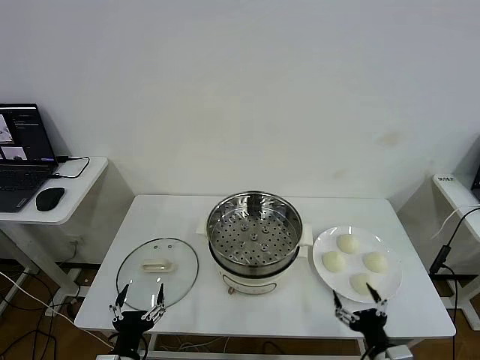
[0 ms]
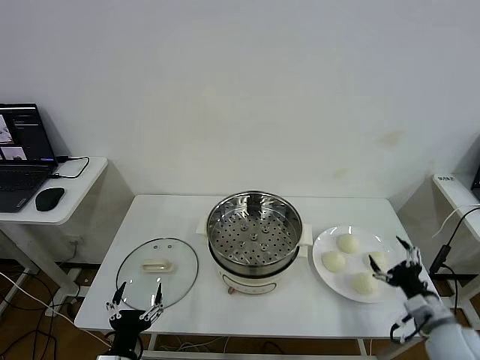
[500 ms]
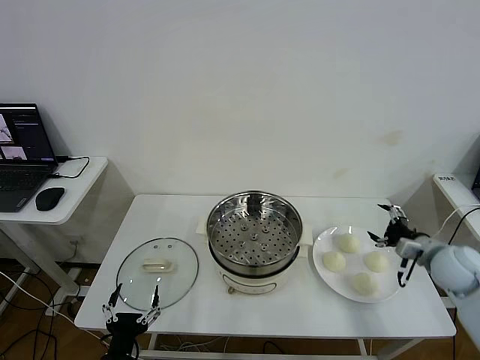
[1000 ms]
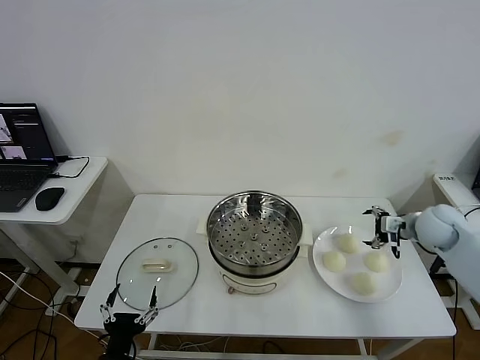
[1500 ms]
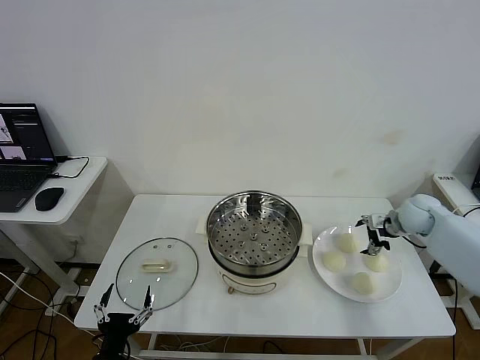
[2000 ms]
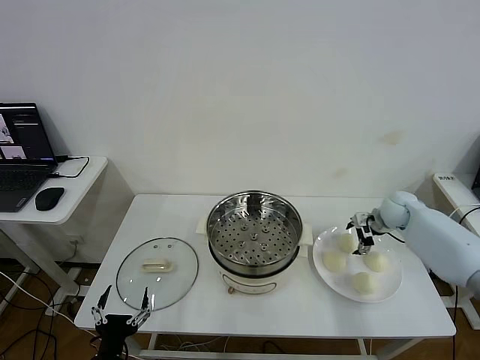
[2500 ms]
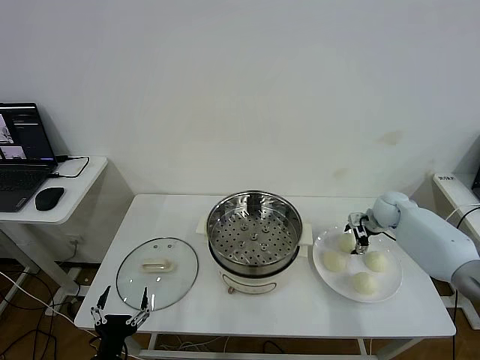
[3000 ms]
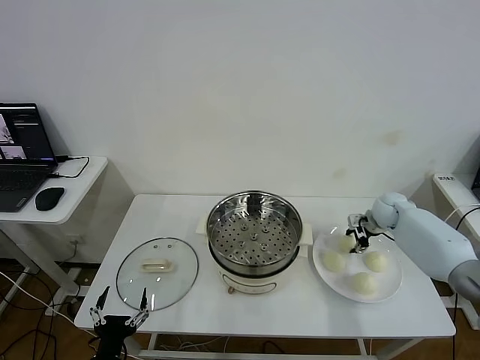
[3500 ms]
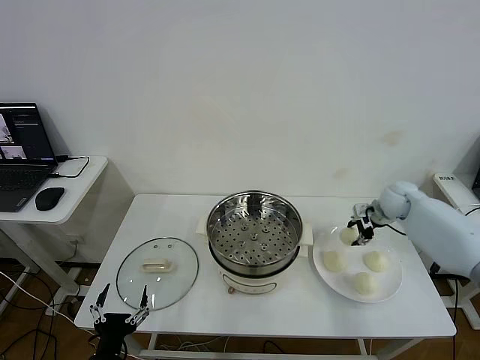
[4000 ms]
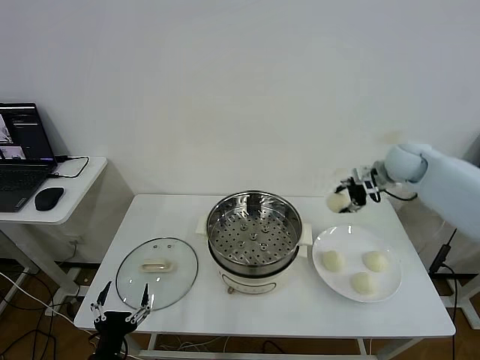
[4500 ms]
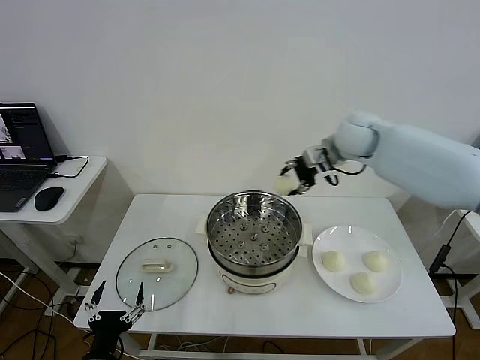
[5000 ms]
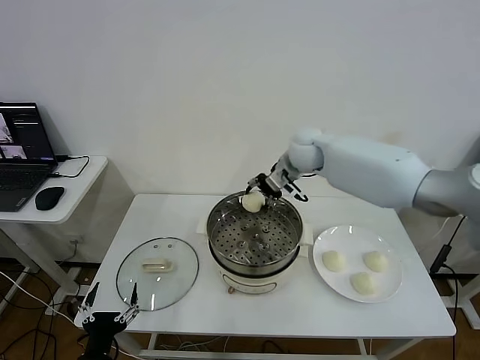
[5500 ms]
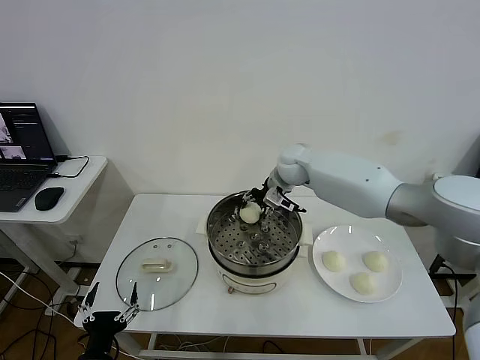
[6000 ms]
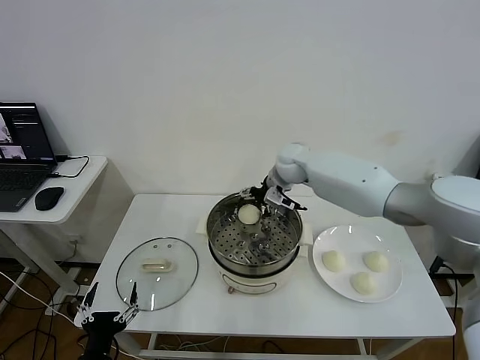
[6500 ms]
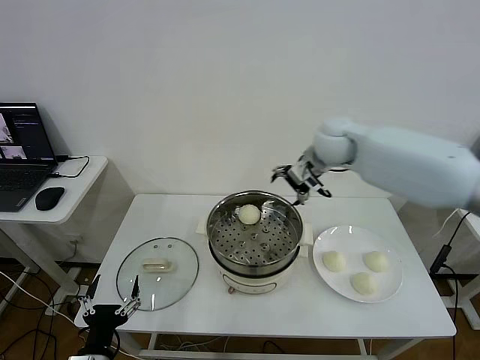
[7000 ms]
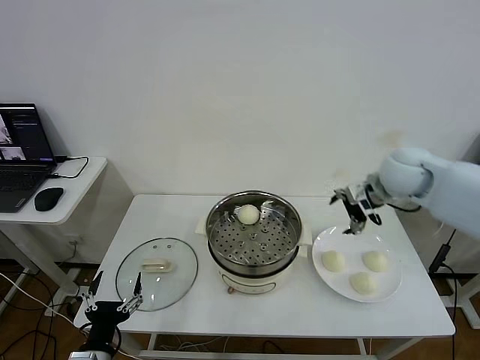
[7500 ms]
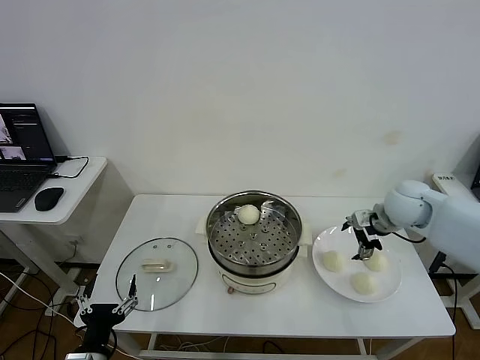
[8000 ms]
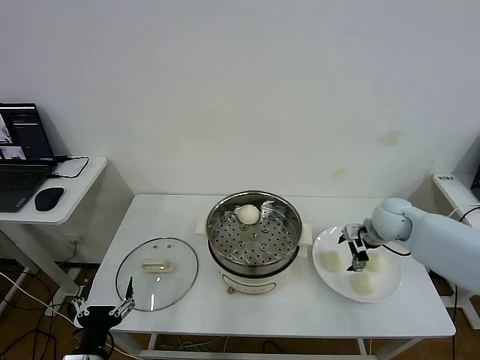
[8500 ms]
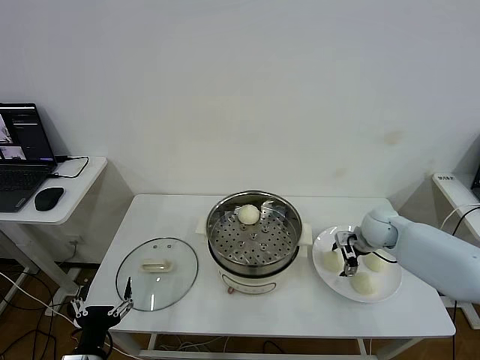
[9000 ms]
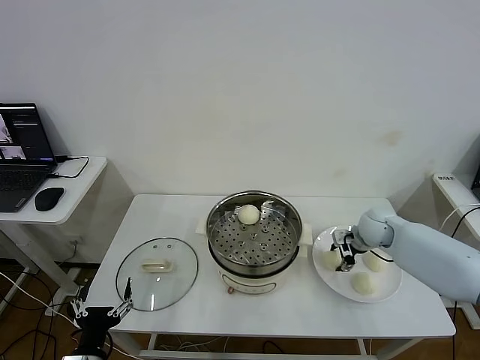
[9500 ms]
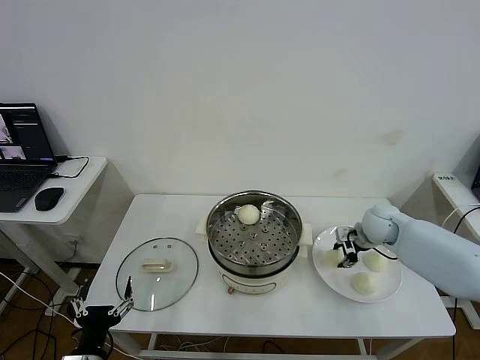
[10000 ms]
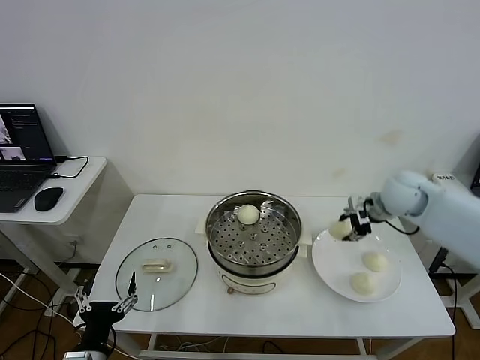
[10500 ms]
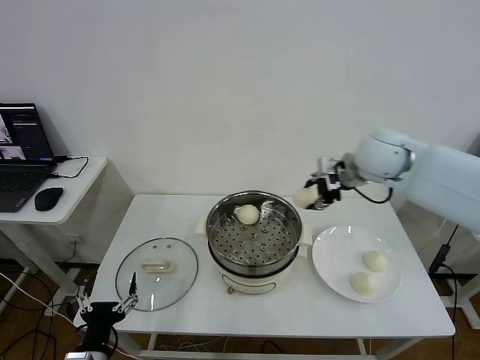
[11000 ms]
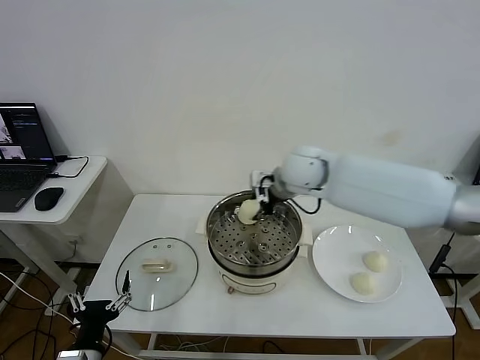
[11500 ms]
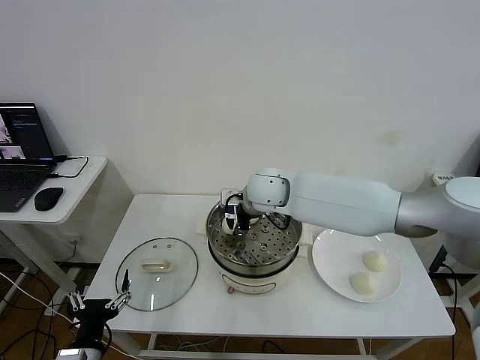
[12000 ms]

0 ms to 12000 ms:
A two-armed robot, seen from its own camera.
Step, 0 ms to 3000 ms: Grasp the baozi in the plate with right gripper.
Step, 3500 ms to 6000 ms: Place the baozi on the steamer with right gripper.
Step, 6500 ms to 9000 ms: Grasp the baozi in the plate with right gripper.
2000 ms to 4000 ms: The right gripper changes place by about 5 cm, and closes up.
4000 ms to 6000 ms: The right gripper travels to the left by approximately 30 cm.
6000 ms to 8000 ms: The right gripper is displaced to the right and backward by roughly 25 cm, and opens its fingers.
8000 ms to 10000 ms: The right gripper shifts roughly 5 cm downward, and closes its fingers.
10000 ms to 12000 ms: The right gripper shifts approximately 30 cm to the left.

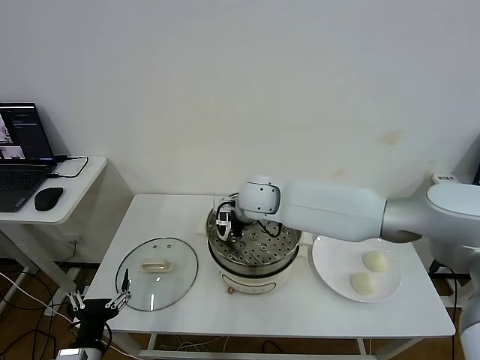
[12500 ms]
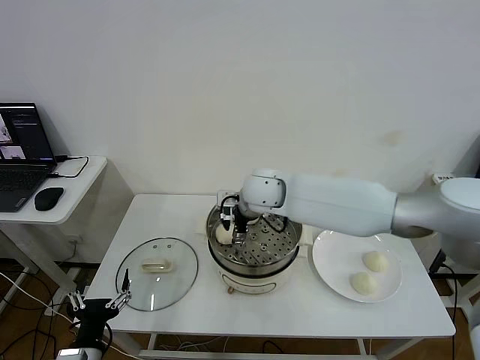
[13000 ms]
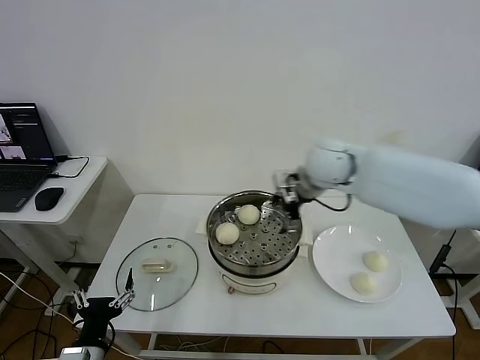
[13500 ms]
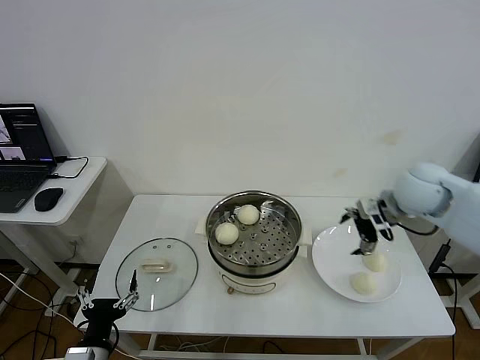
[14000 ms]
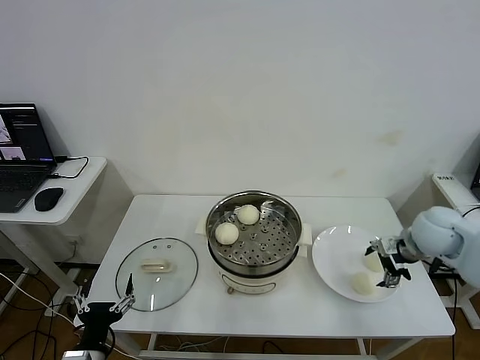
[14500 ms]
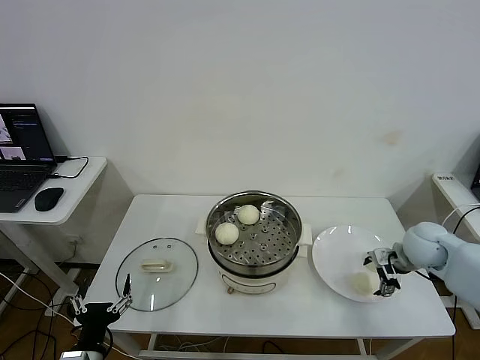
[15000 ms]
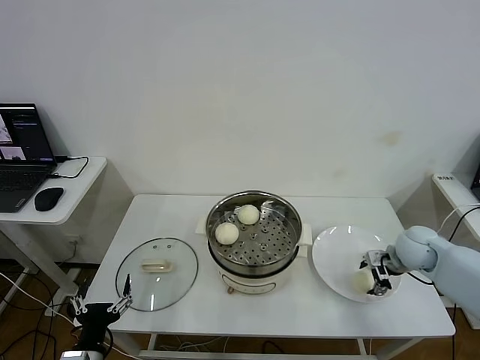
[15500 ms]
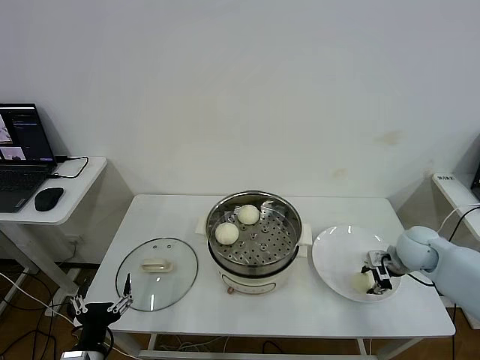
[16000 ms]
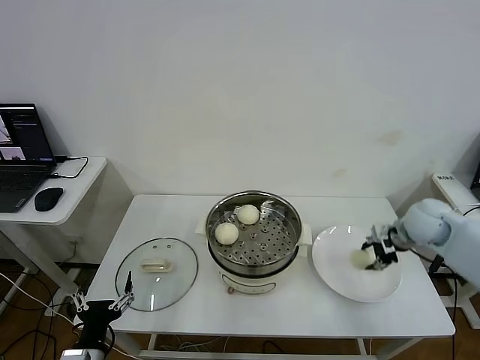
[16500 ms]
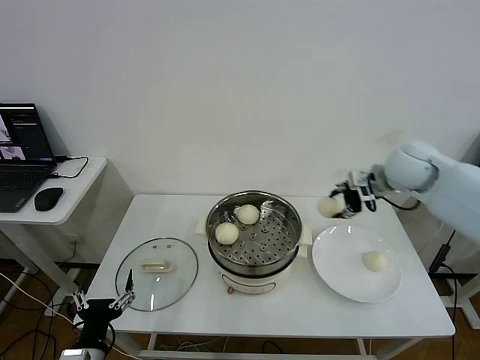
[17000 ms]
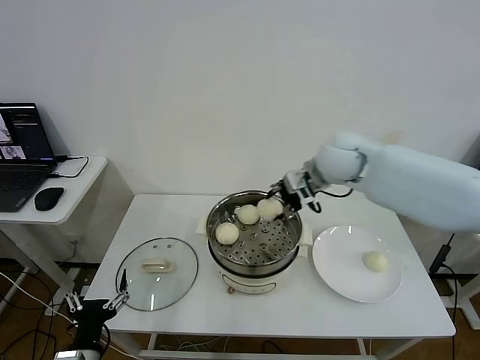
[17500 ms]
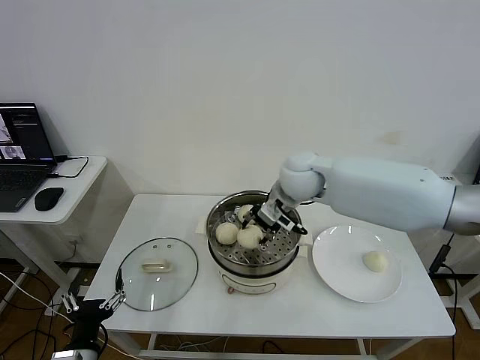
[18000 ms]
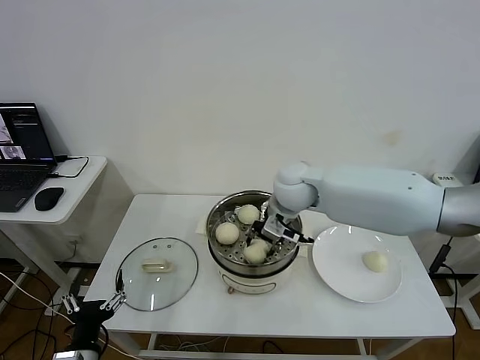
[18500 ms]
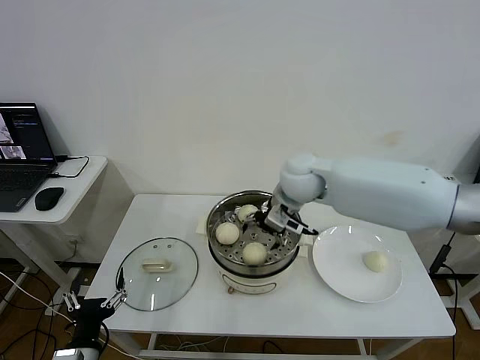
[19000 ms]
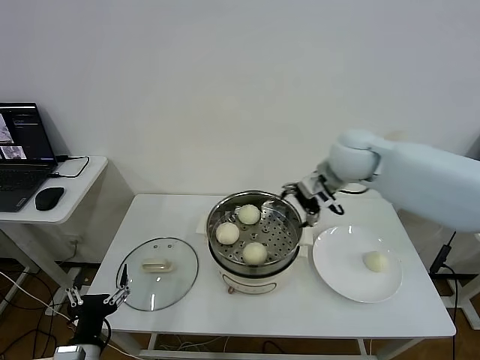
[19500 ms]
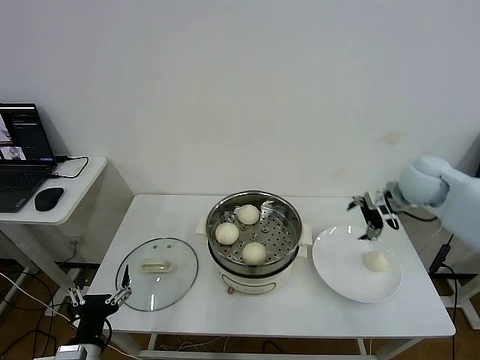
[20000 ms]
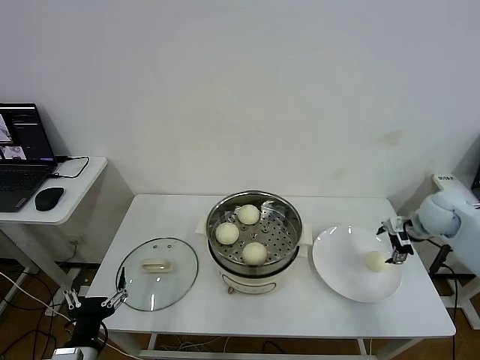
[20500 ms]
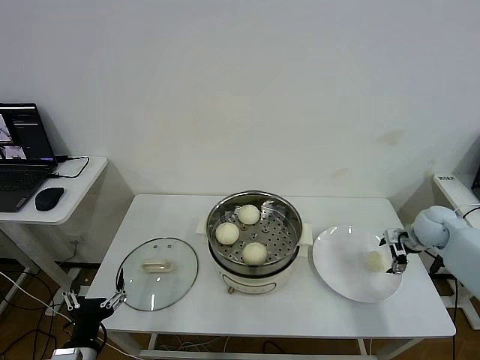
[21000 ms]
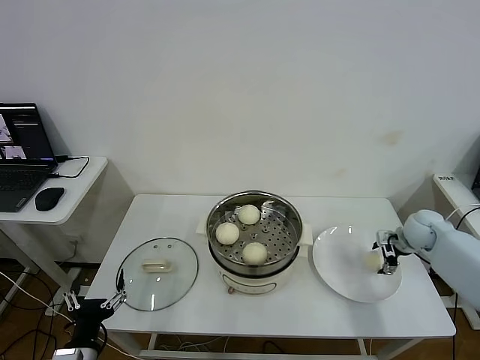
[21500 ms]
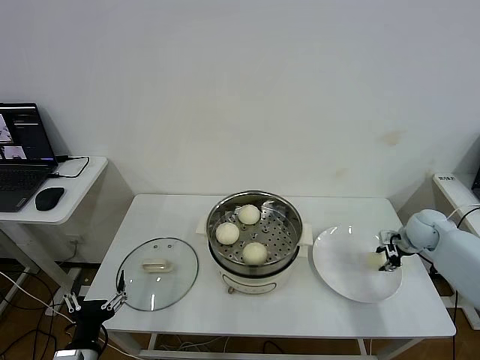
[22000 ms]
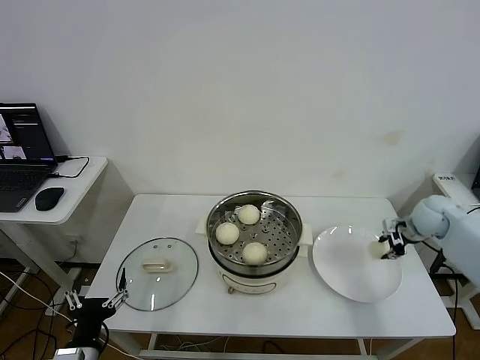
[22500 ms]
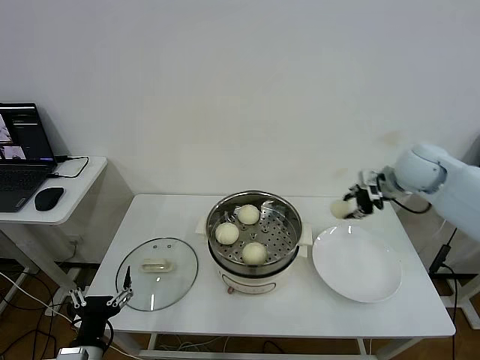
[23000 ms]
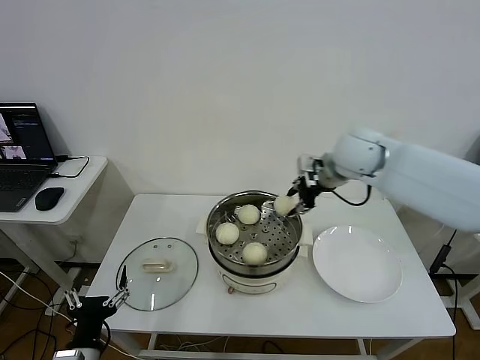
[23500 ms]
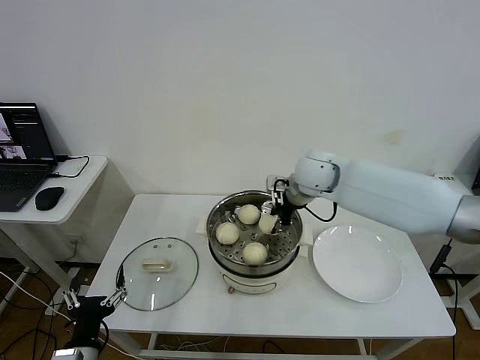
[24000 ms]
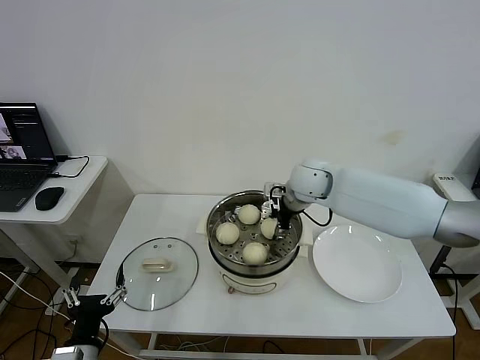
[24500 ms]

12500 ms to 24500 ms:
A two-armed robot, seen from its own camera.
Step, 13000 ms to 15500 ms: Grasp the baozi in the plate with right gripper.
Step, 16000 ms to 18500 ms: Place the baozi on the steamer with right gripper.
Step, 19000 ms to 21500 ms: Grasp the baozi in the plate with right gripper.
12500 ms to 14500 ms: The right gripper is displaced to the right by roughly 35 cm, and opens.
14500 ms to 16500 ms: The right gripper goes downward and returns, roughly 5 cm each way, and closes.
16500 ms to 18500 ms: The right gripper moves to the left, approximately 30 cm.
18500 ms to 20500 ms: The right gripper heads to the right, covering about 35 cm, and opens.
20500 ms to 22500 ms: The right gripper travels downward and back again, roughly 10 cm each way, and closes up.
22500 ms to 24500 ms: The right gripper travels to the left by about 30 cm, and opens.

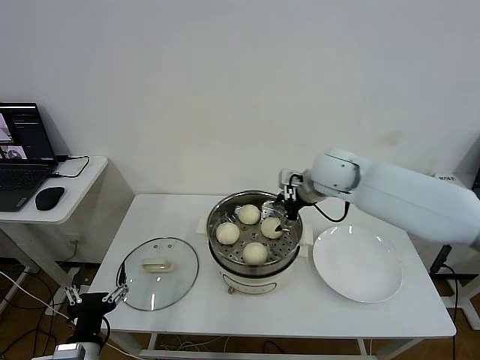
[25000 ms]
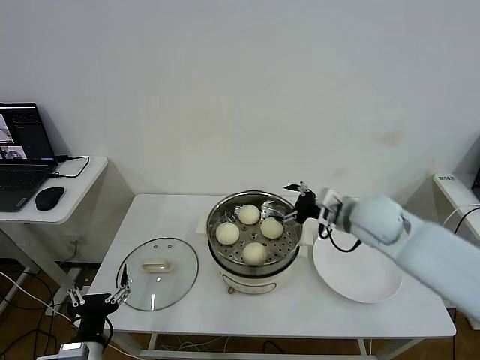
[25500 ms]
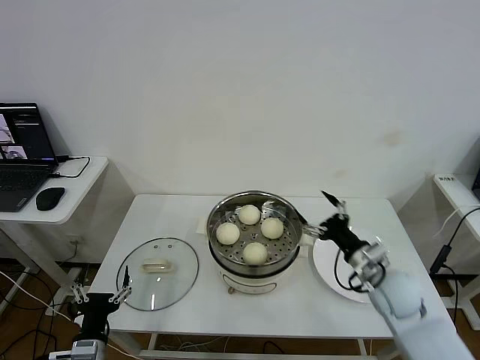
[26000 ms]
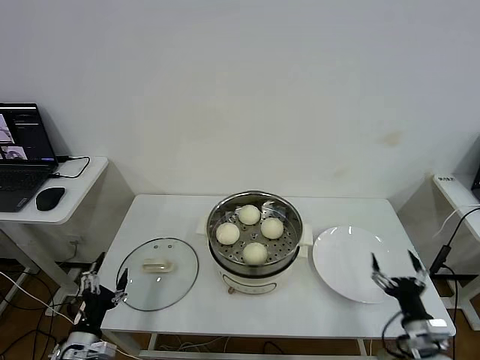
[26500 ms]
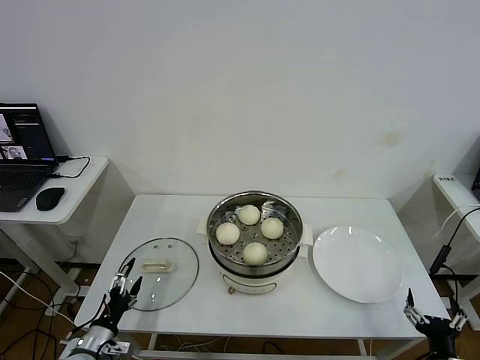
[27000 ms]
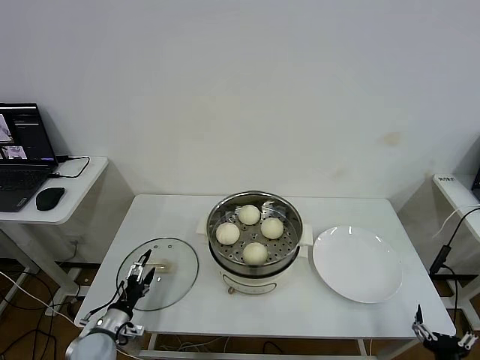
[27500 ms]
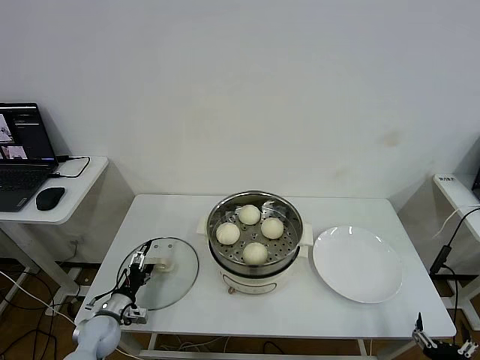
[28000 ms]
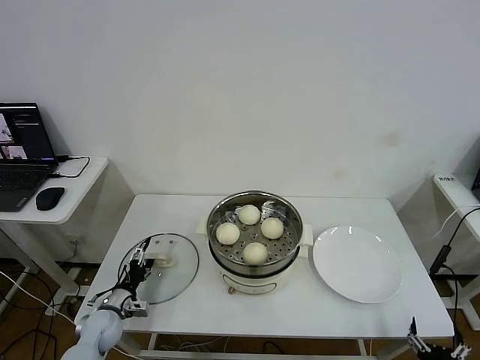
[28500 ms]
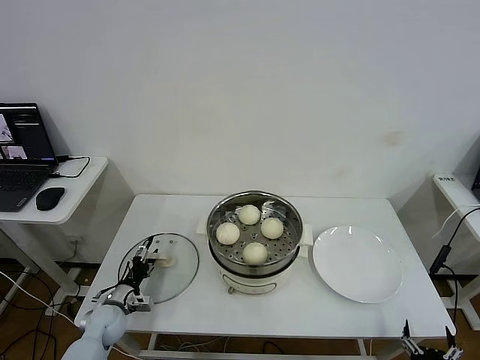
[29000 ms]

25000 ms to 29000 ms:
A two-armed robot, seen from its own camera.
25000 ms to 27000 ms: The right gripper shifts roughly 50 cm backward, downward and to the right; the left gripper travels downward, to the left and forward by some 10 cm.
27000 ms to 29000 ms: The left gripper heads forward, covering about 15 cm. The right gripper changes place by roughly 5 cm.
